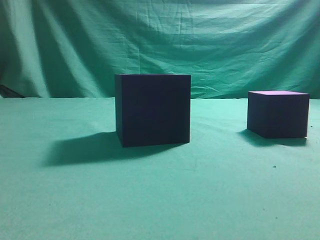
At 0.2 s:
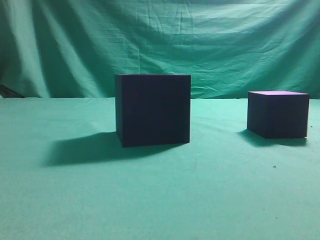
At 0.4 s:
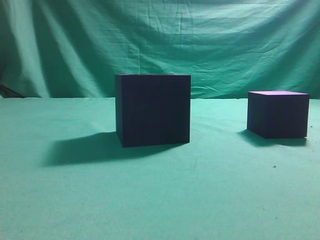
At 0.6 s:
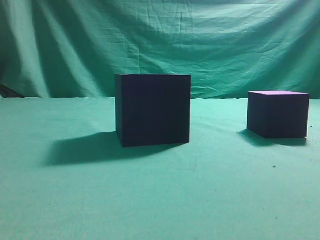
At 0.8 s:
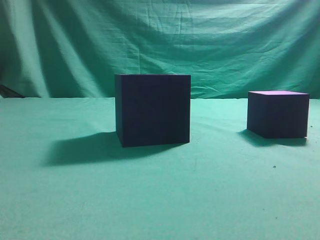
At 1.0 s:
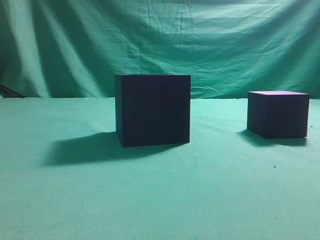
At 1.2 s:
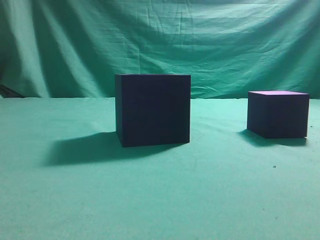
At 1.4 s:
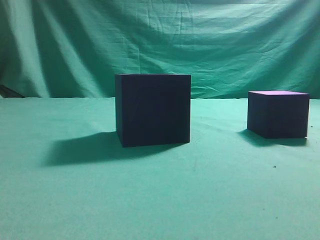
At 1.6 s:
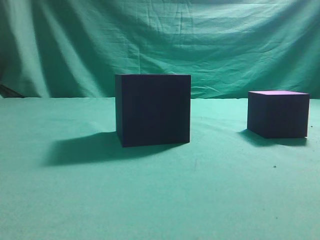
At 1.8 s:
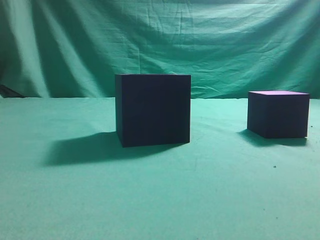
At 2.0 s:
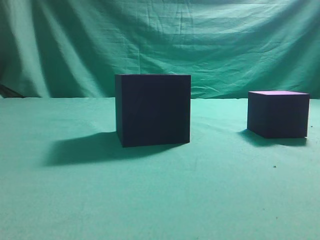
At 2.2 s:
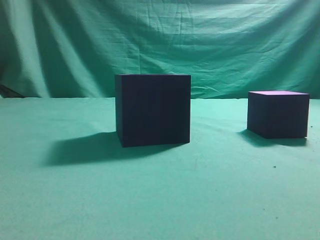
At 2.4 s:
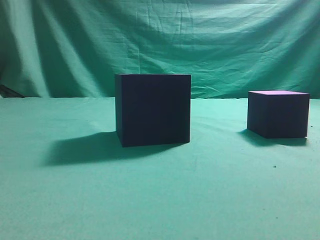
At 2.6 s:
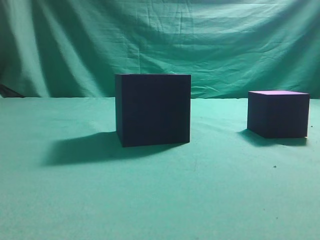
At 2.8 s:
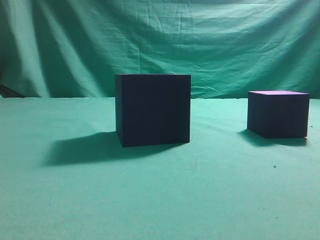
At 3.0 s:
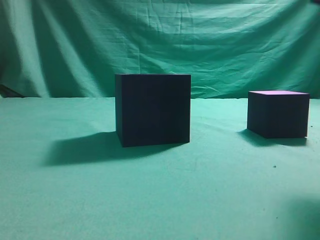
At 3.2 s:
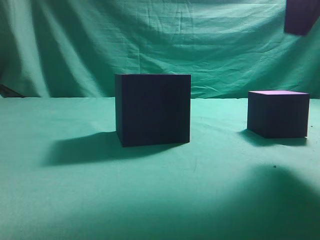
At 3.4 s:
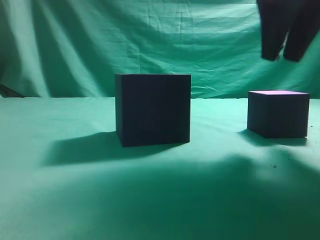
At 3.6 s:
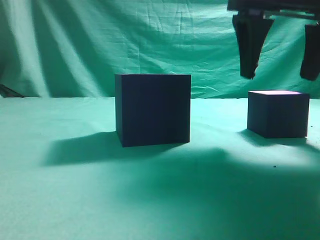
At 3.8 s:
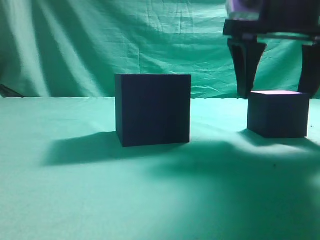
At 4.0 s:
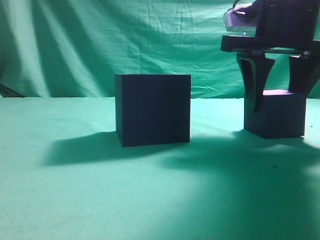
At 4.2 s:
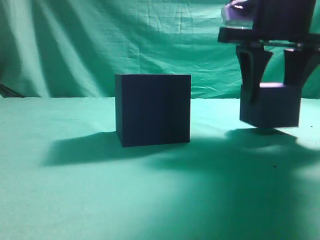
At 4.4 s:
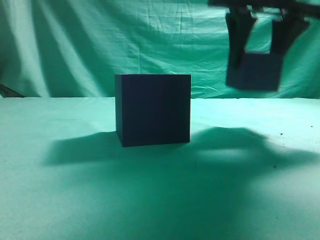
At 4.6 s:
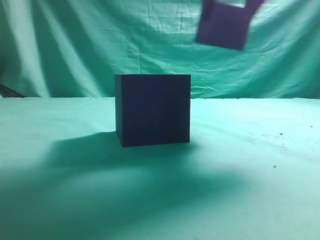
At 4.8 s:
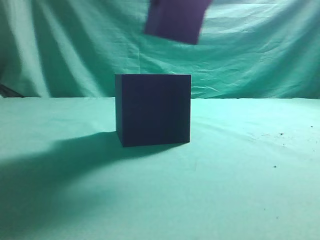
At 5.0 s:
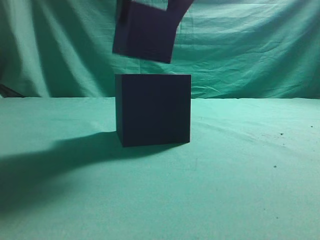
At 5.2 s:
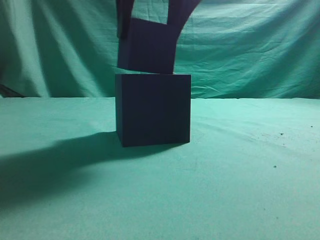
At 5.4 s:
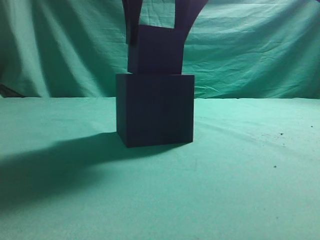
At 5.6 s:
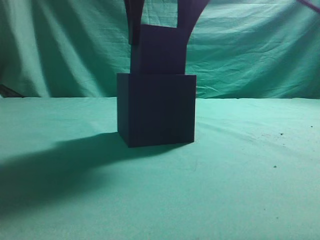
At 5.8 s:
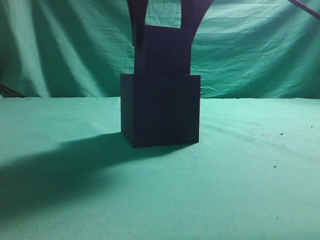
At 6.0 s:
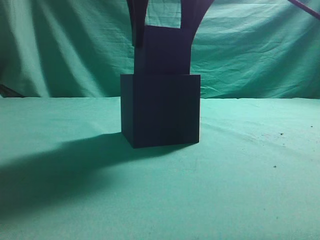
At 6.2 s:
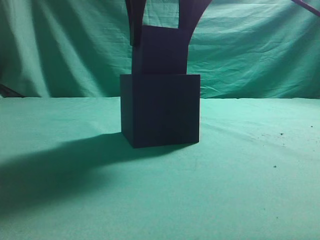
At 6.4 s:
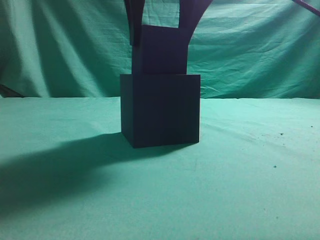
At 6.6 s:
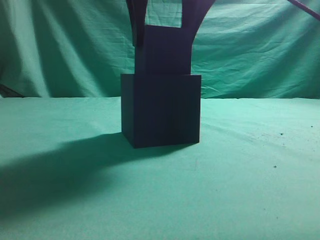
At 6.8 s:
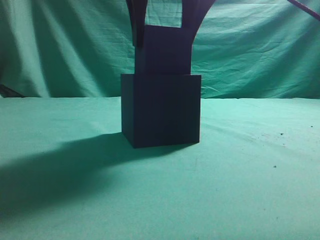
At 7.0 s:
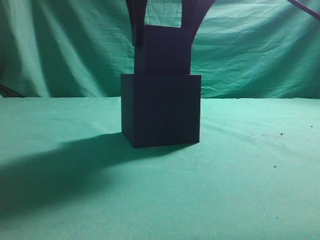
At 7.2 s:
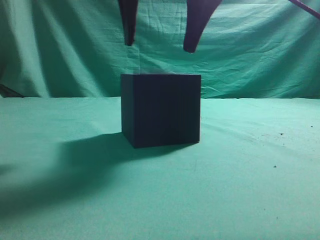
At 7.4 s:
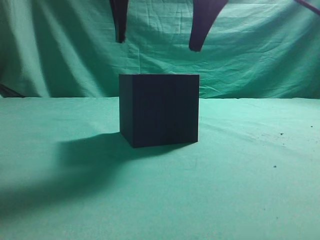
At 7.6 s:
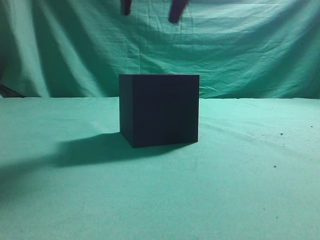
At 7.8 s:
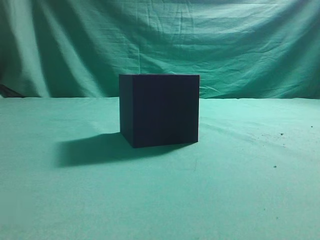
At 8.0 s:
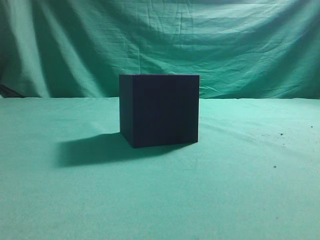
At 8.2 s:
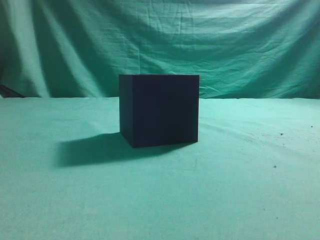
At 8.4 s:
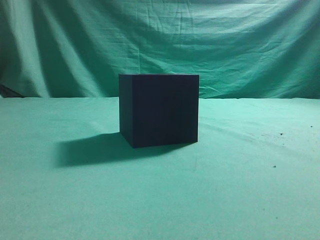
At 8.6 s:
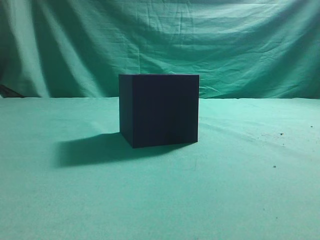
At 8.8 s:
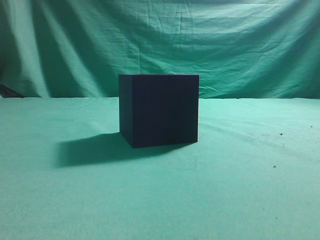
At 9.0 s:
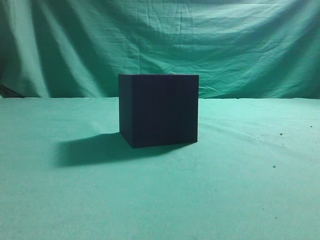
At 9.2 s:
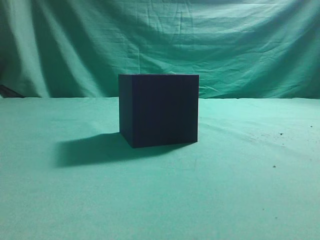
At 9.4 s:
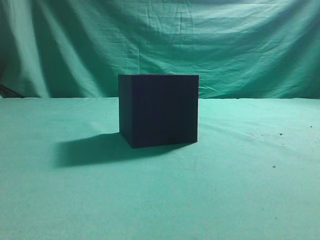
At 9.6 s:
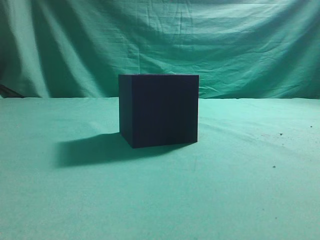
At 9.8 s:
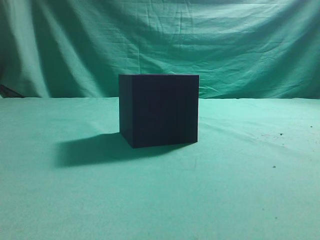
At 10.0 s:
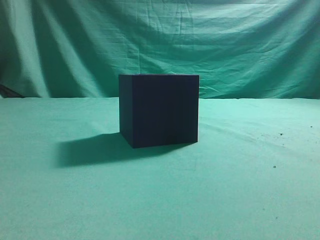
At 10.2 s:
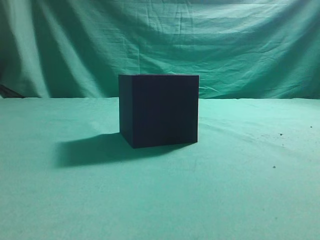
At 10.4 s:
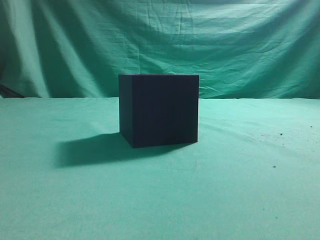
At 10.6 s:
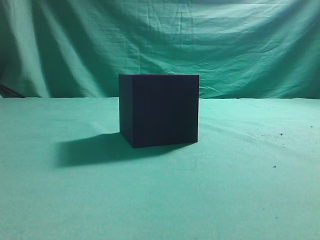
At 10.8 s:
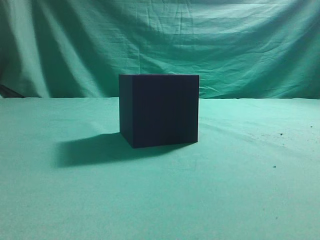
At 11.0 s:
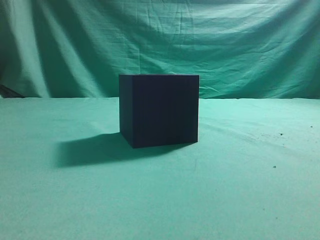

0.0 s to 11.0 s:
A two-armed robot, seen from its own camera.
Task of the whole recording: pick up the cube block and place it into the cube groove.
Step, 0.0 to 4.2 s: Grasp the cube.
Step, 4.4 to 7.4 s: Place cube into the cube-shaped recess.
1.6 to 3.2 s: The right gripper goes about 25 cm forward, to the left and upward.
3.2 to 4.8 s: The right gripper moves to the left, approximately 10 cm, goes downward and returns, about 10 cm each way, and opens.
4.8 to 6.2 s: The right gripper ends up some 5 cm from where it was.
6.2 to 7.8 s: The right gripper moves upward, approximately 10 cm, and closes up.
